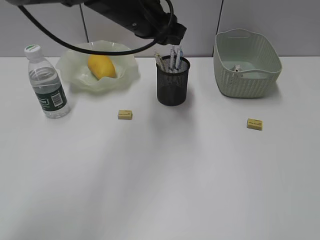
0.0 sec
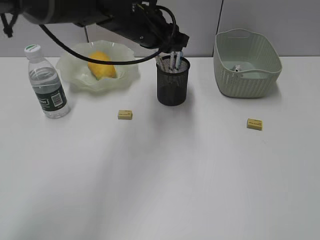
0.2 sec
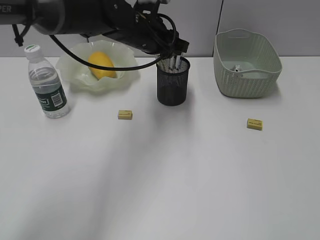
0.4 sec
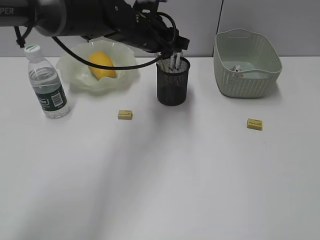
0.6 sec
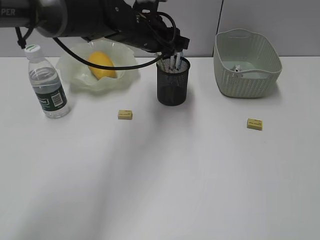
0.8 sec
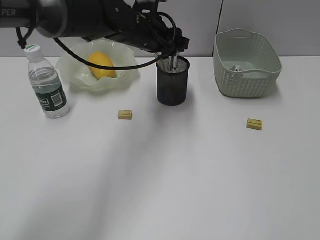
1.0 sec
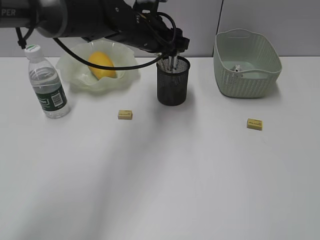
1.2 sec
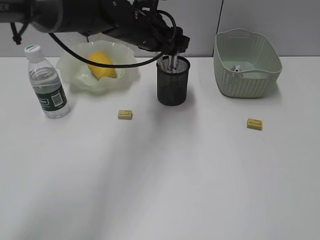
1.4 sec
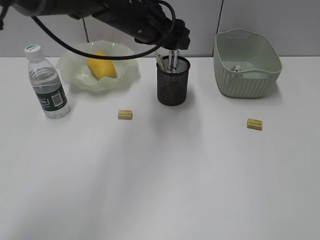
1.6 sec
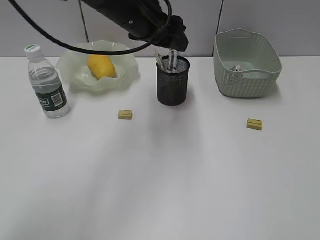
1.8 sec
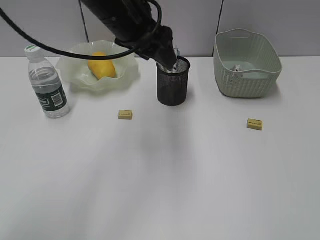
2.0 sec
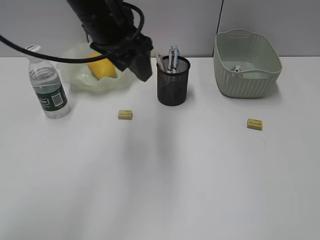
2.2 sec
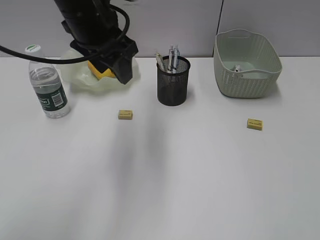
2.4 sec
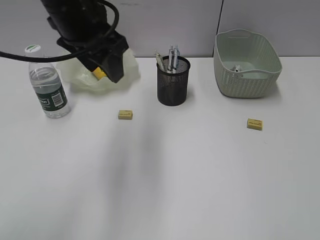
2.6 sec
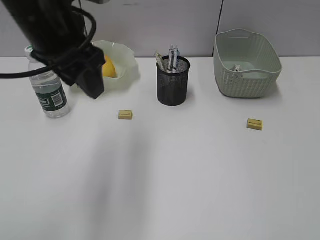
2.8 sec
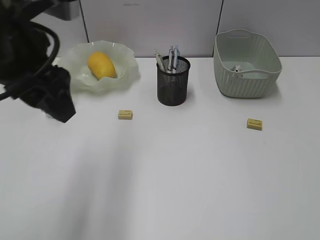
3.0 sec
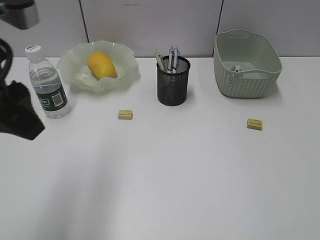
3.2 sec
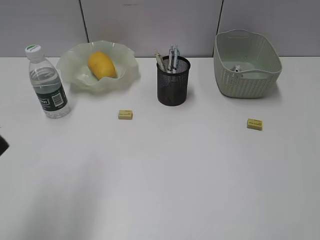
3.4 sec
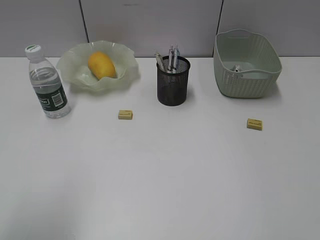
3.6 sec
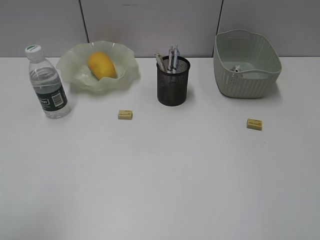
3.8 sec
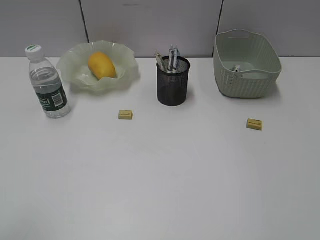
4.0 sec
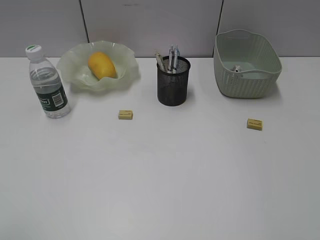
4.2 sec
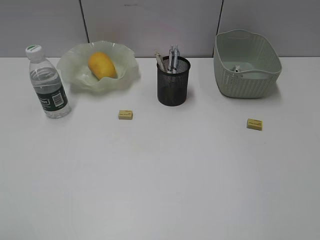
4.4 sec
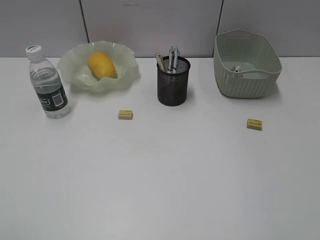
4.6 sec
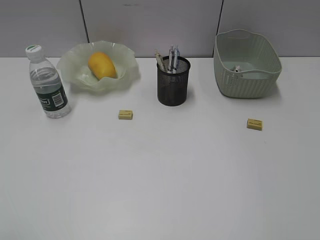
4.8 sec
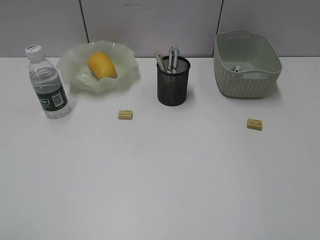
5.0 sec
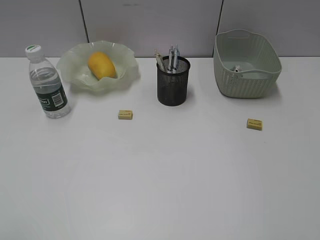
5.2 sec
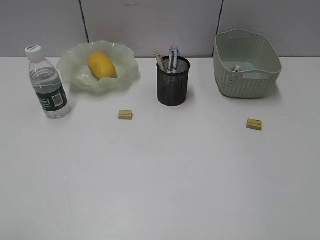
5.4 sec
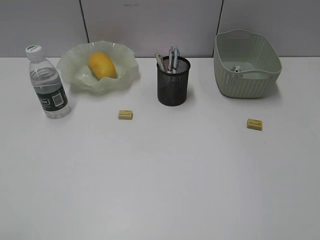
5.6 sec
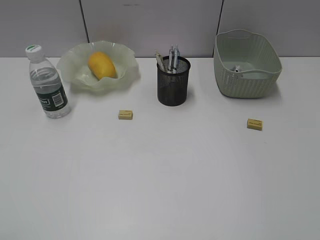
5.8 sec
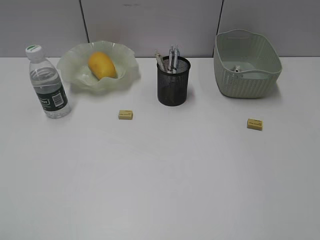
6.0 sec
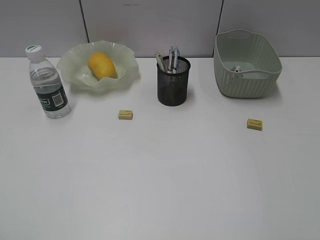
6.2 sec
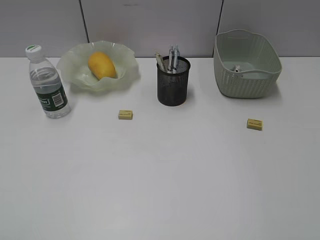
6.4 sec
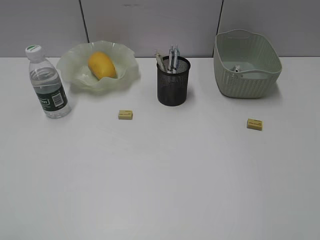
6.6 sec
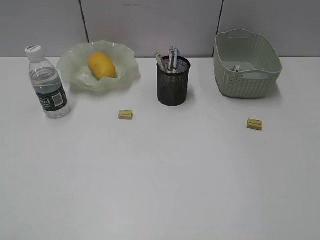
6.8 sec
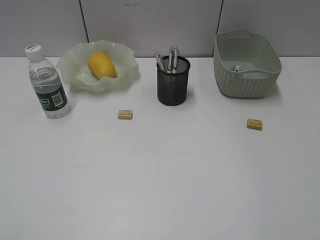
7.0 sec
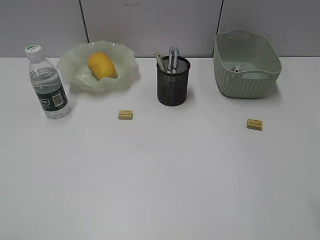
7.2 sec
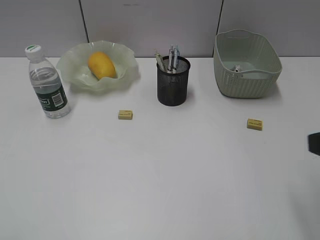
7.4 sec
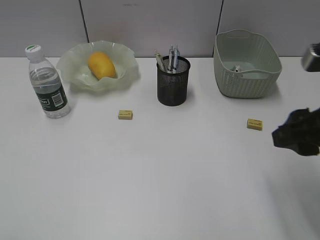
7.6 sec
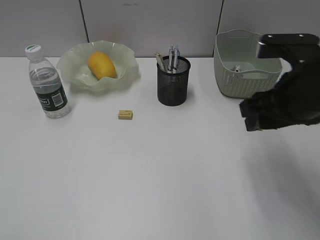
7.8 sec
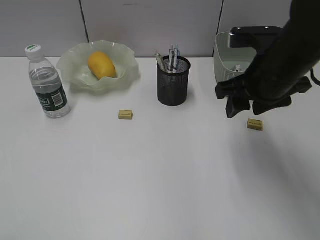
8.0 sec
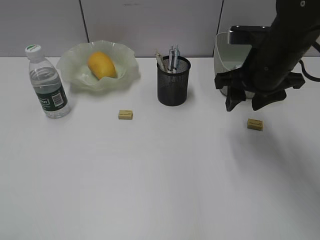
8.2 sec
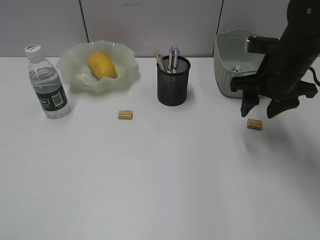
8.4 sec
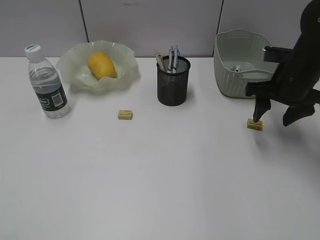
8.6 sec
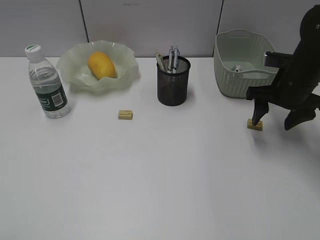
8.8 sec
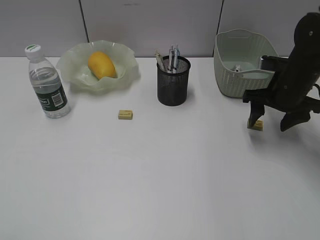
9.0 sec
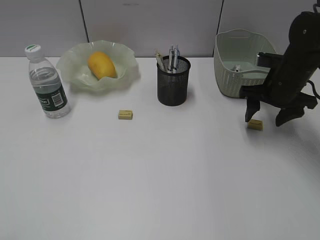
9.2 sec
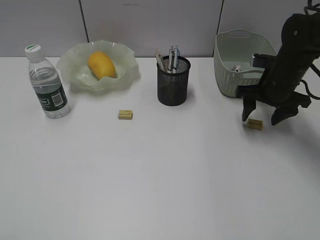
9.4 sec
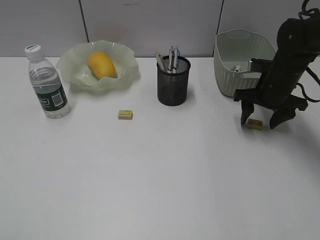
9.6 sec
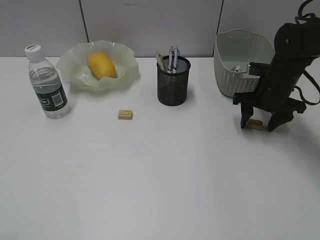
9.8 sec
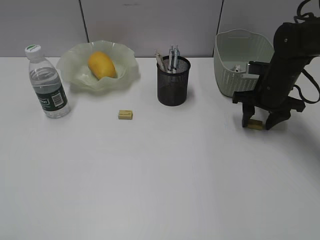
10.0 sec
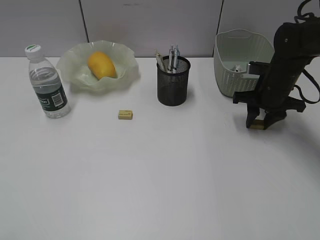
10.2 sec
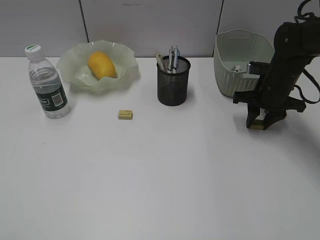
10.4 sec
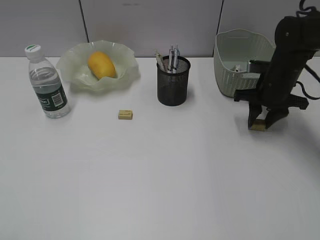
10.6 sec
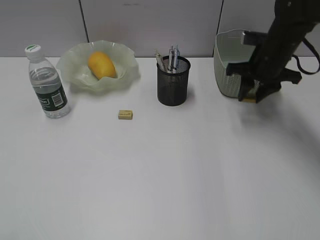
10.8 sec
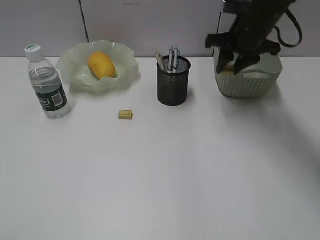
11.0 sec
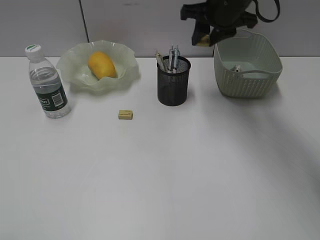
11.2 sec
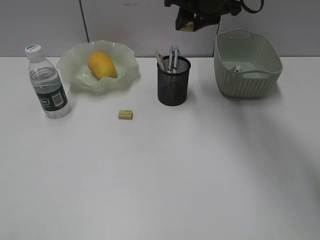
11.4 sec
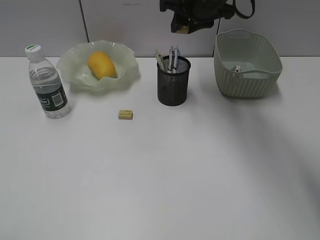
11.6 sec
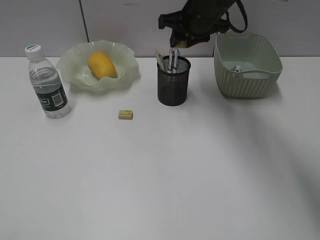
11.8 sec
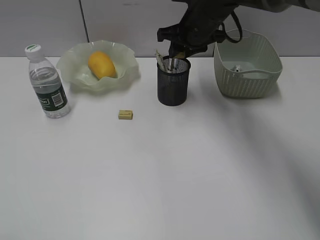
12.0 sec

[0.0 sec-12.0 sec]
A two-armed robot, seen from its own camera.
Step, 1.6 sec to 10.4 sec: Grasp the eraser with right gripper.
0.0 sec to 1.6 sec: The left gripper opens.
1.6 sec to 3.0 sec: The left gripper travels backward, to the left and upward by roughly 20 cm.
3.0 sec to 4.4 sec: The left gripper moves backward and to the left, approximately 30 cm.
6.0 sec to 7.6 sec: The right gripper goes some 15 cm forward and to the left.
7.6 sec to 9.0 sec: The right gripper goes about 20 cm forward and downward.
9.0 sec to 10.4 sec: The right gripper moves some 5 cm, and closes.
10.4 sec to 12.0 sec: The right gripper is displaced to the left and upward by about 20 cm.

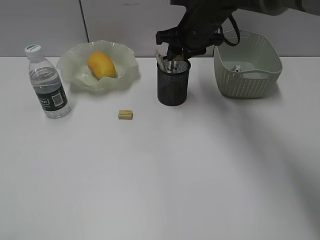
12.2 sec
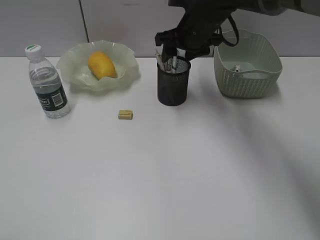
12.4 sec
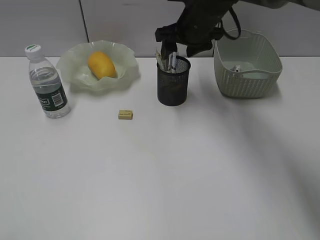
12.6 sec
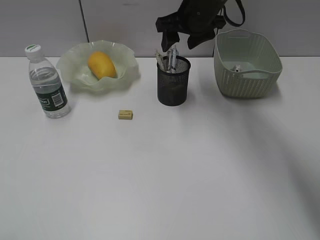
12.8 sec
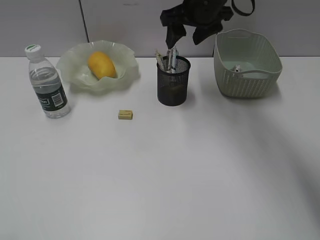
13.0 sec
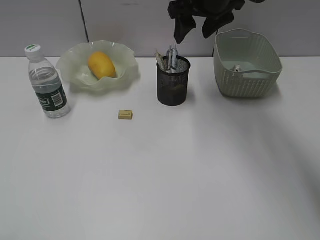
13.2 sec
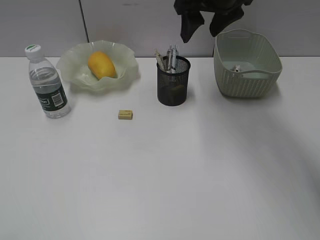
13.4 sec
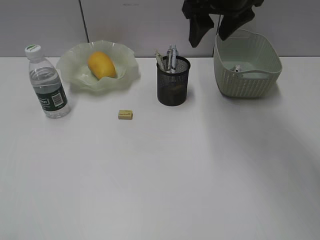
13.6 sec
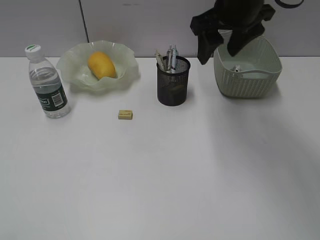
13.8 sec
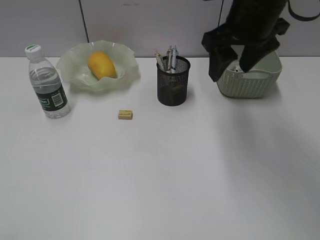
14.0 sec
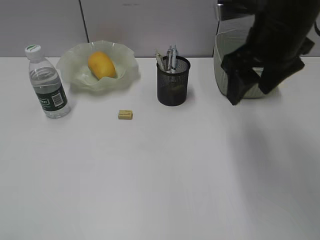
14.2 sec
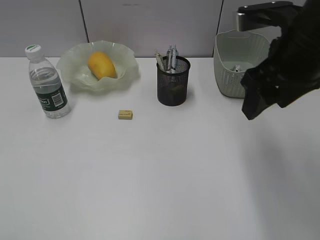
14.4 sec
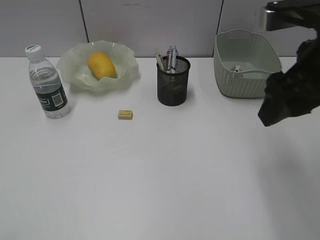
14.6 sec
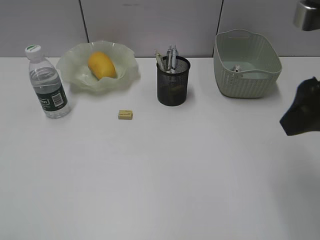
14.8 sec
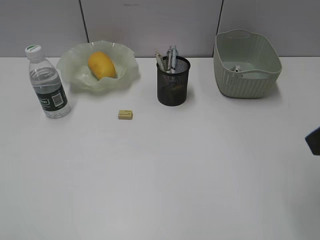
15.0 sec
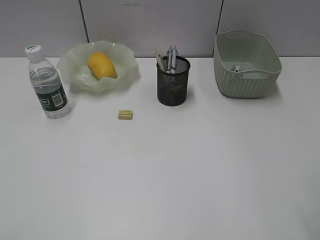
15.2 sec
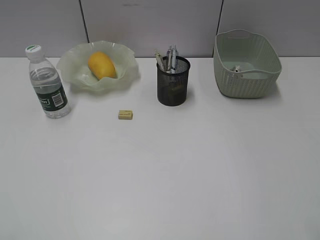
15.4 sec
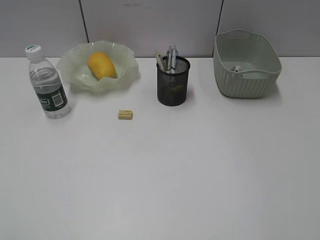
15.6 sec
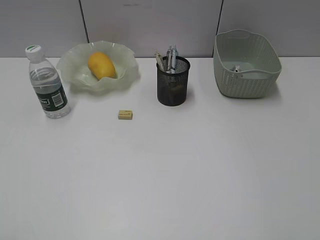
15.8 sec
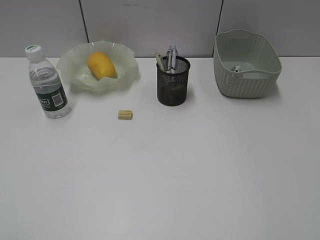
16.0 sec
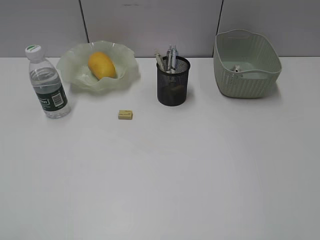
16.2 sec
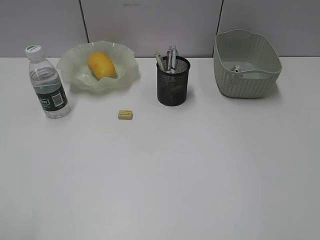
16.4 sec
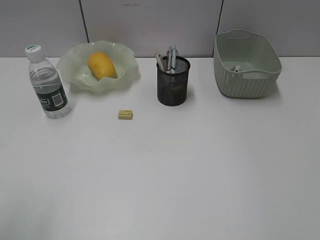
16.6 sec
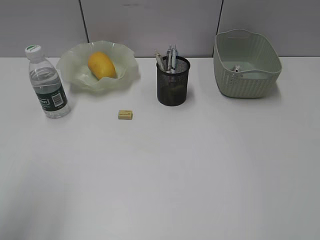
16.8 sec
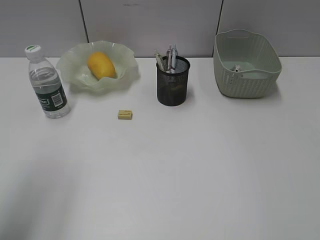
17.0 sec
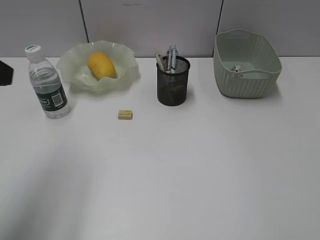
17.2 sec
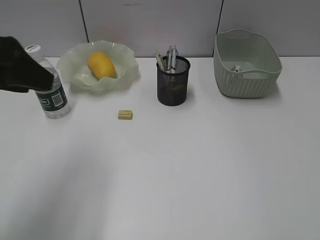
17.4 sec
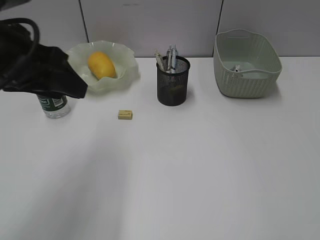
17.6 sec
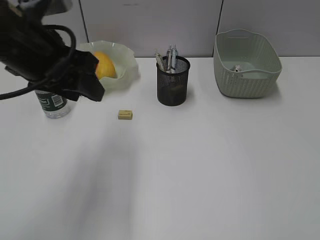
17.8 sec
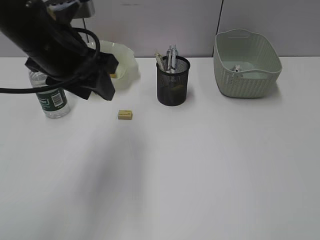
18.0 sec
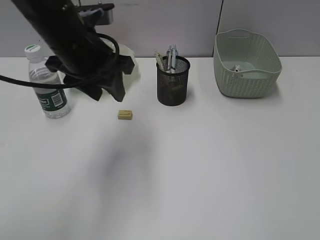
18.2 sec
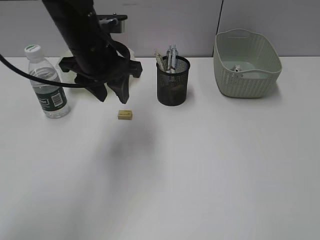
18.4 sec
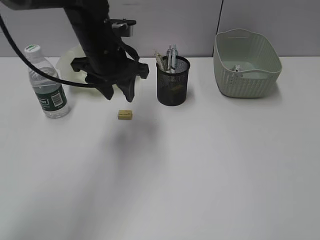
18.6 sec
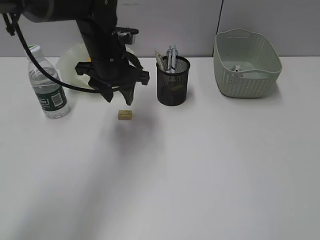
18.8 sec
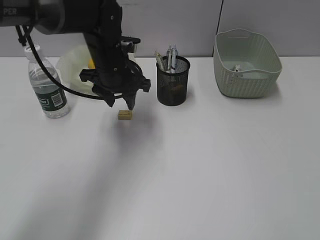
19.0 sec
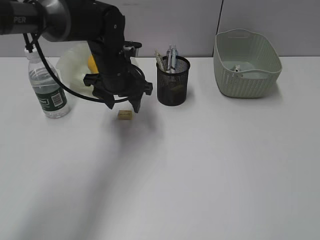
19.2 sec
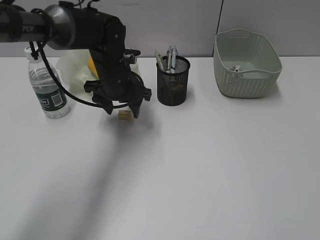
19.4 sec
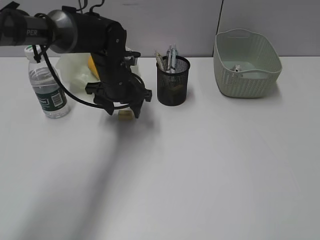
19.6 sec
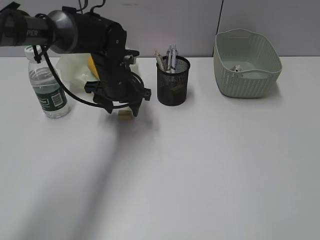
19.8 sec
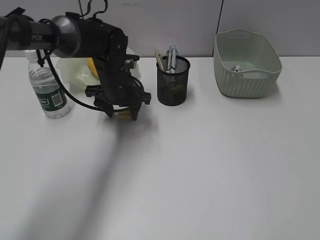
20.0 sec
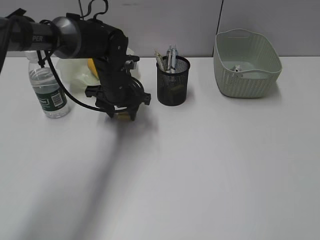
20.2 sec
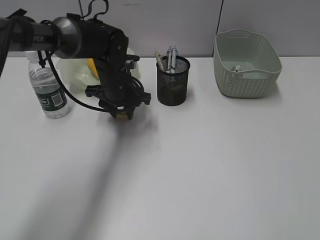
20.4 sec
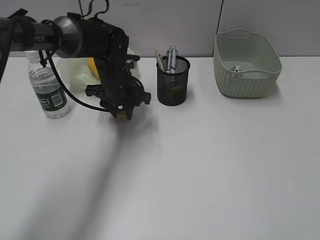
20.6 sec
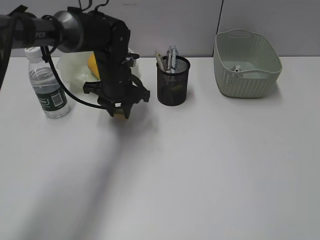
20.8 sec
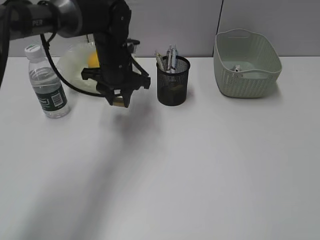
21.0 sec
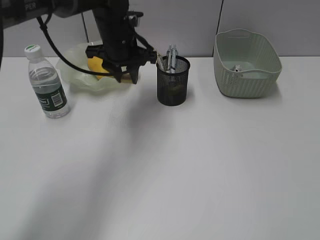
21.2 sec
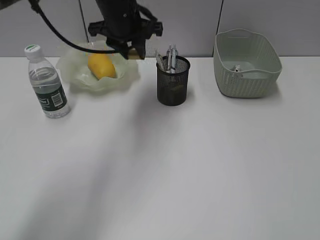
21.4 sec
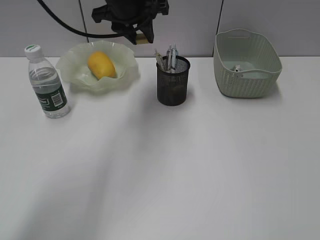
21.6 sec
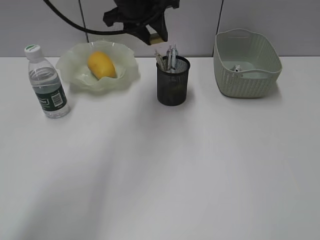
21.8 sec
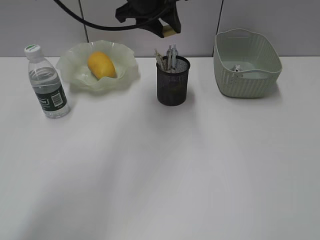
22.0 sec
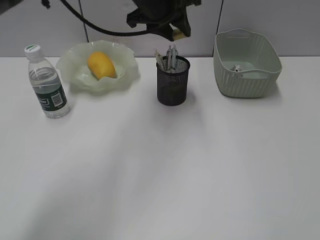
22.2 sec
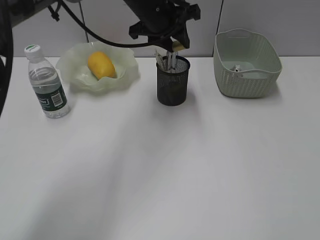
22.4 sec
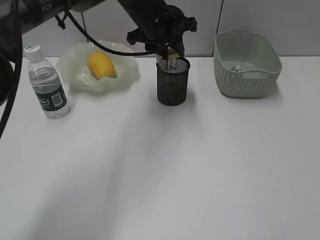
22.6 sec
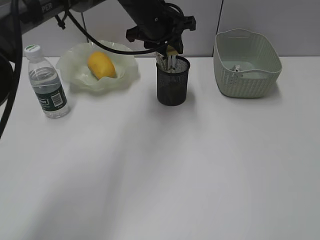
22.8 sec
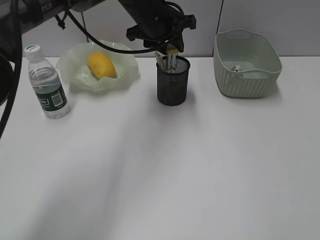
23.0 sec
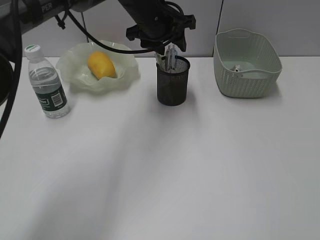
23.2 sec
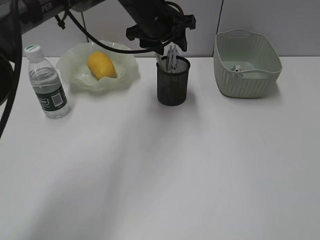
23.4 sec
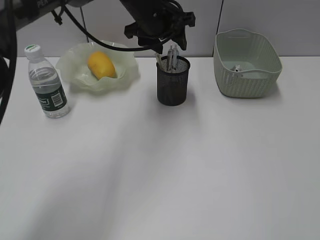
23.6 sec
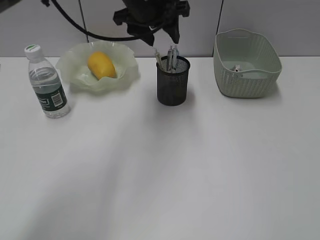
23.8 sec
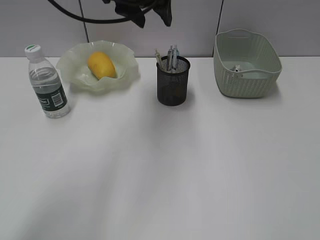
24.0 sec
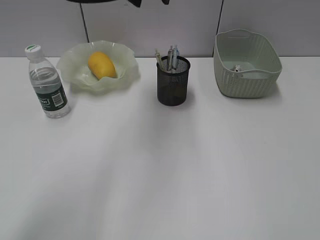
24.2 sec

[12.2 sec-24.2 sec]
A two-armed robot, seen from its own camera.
Step, 12.6 sec to 20.4 sec: Grasp the eraser with left gripper.
Step, 20.6 sec to 23.2 sec: Place the eraser in pen holder with left gripper.
12.2 sec to 13.8 sec: The right gripper travels upward and backward by about 10 cm, and opens.
13.8 sec to 15.2 sec: The right gripper heads backward and to the right, covering roughly 30 cm.
16.6 sec to 18.2 sec: The left gripper is displaced forward and to the right by roughly 30 cm.
18.2 sec to 19.8 sec: The left gripper travels downward and forward by roughly 15 cm.
19.8 sec to 21.2 sec: The left gripper is displaced upward by approximately 5 cm, and closes its fingers.
21.2 sec to 22.6 sec: The left gripper goes about 5 cm to the right.
22.6 sec to 24.2 sec: The left gripper is displaced upward by some 10 cm.
